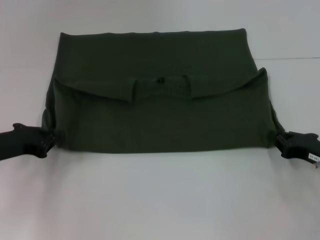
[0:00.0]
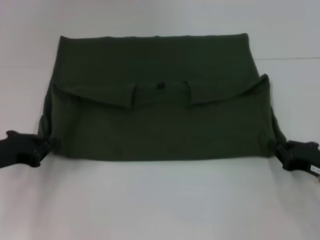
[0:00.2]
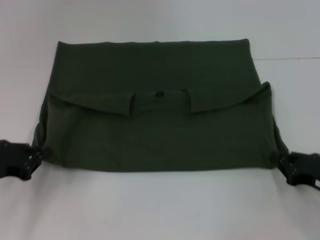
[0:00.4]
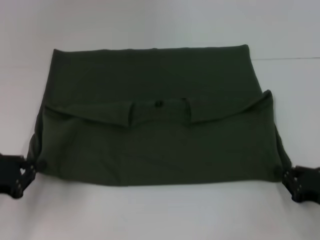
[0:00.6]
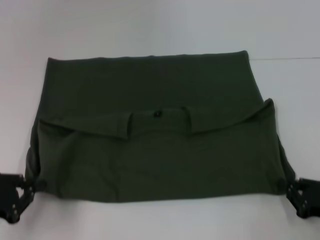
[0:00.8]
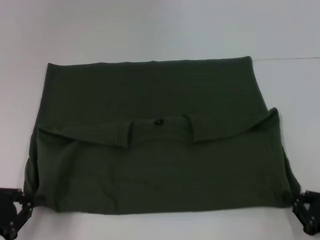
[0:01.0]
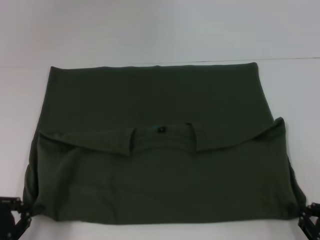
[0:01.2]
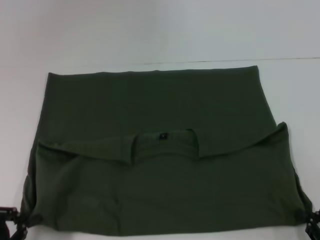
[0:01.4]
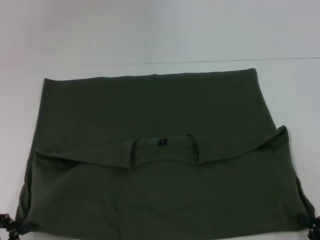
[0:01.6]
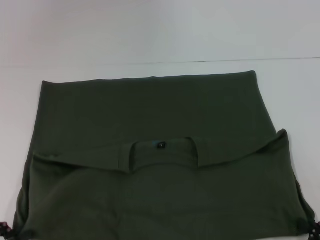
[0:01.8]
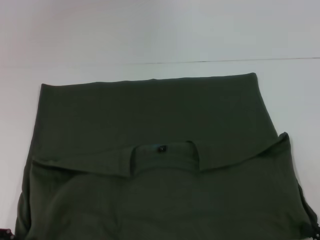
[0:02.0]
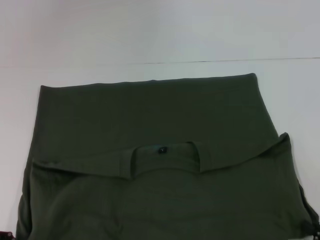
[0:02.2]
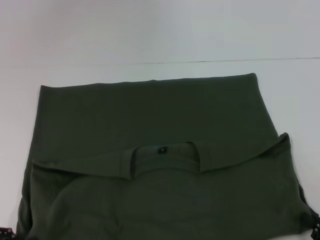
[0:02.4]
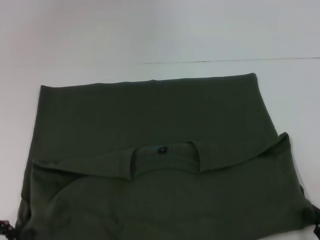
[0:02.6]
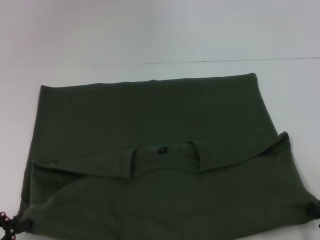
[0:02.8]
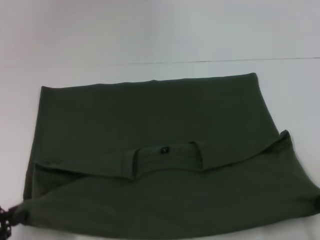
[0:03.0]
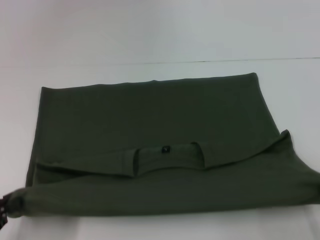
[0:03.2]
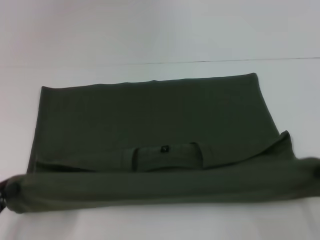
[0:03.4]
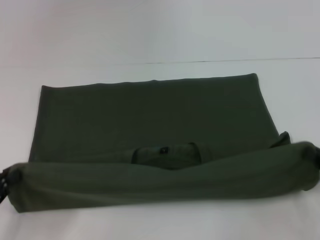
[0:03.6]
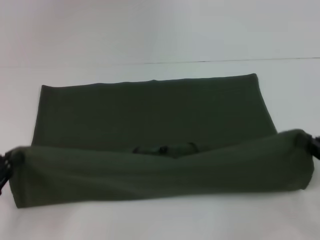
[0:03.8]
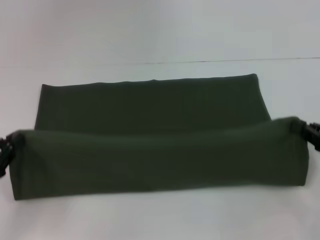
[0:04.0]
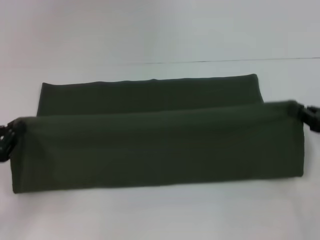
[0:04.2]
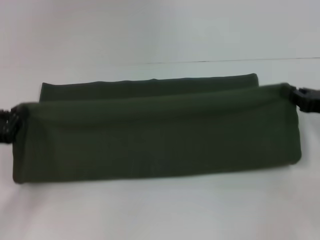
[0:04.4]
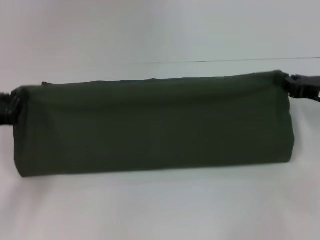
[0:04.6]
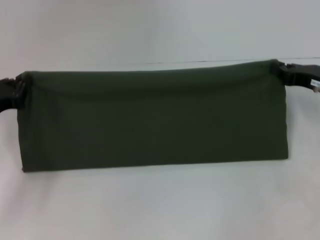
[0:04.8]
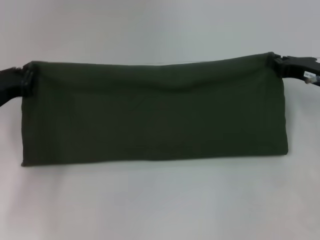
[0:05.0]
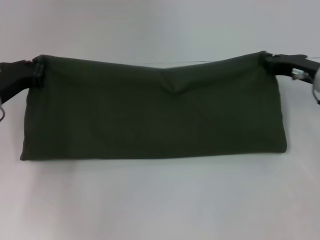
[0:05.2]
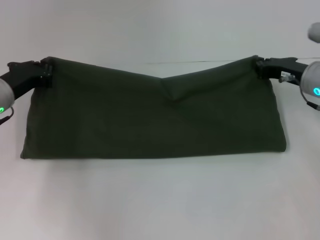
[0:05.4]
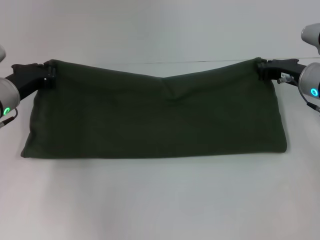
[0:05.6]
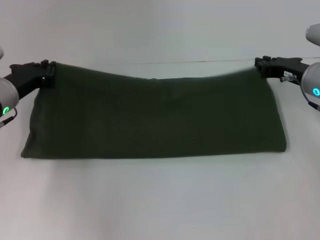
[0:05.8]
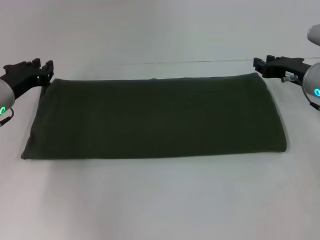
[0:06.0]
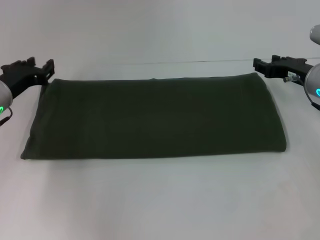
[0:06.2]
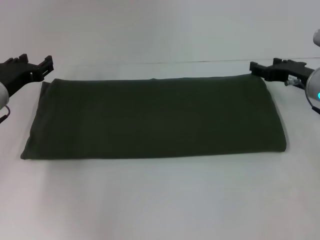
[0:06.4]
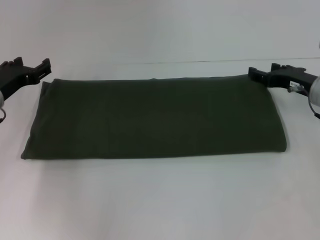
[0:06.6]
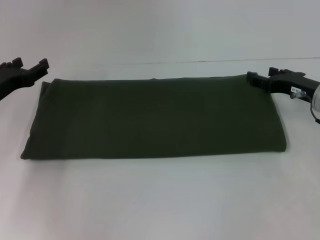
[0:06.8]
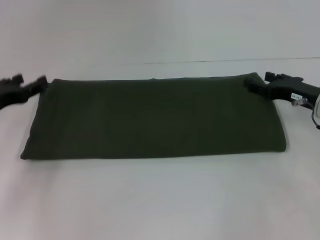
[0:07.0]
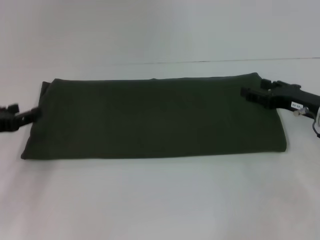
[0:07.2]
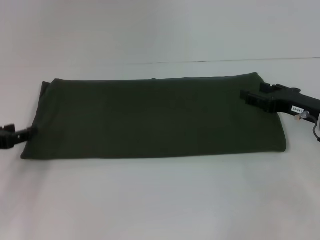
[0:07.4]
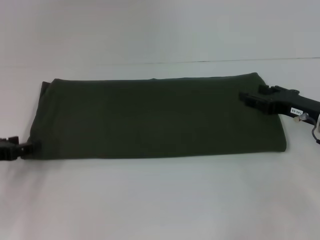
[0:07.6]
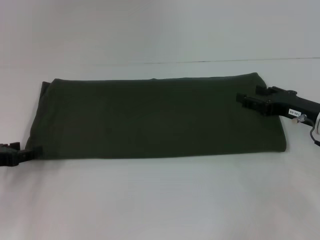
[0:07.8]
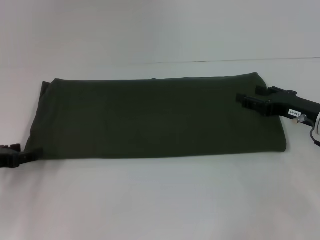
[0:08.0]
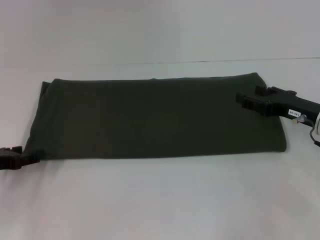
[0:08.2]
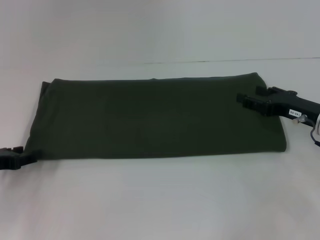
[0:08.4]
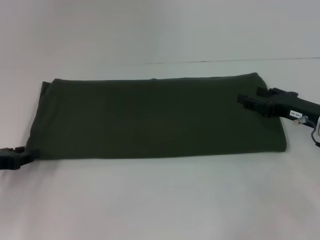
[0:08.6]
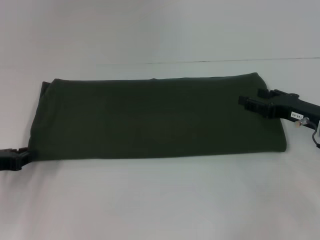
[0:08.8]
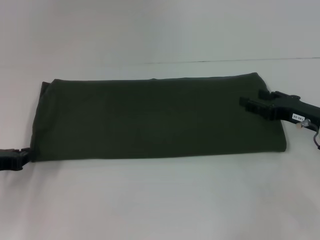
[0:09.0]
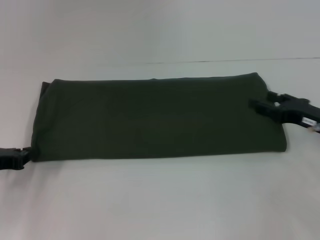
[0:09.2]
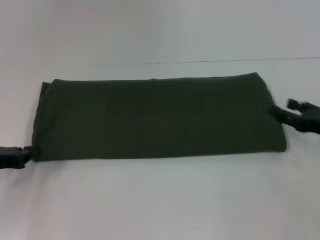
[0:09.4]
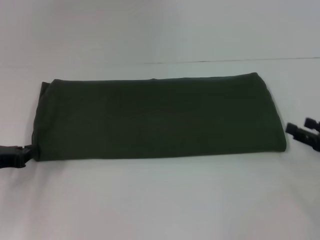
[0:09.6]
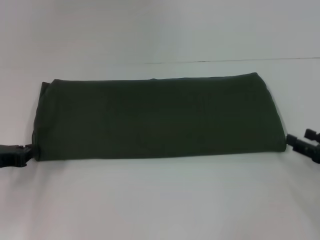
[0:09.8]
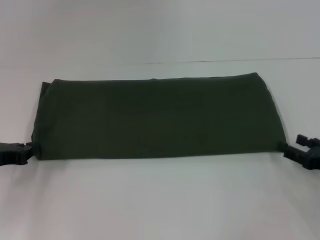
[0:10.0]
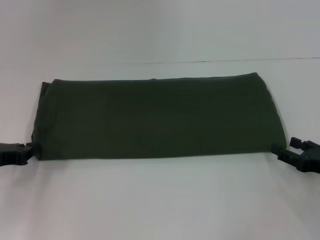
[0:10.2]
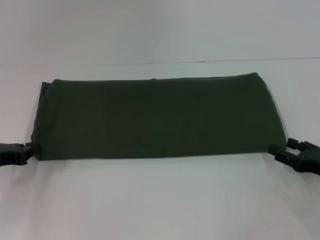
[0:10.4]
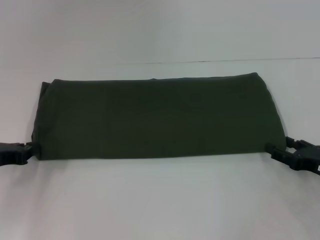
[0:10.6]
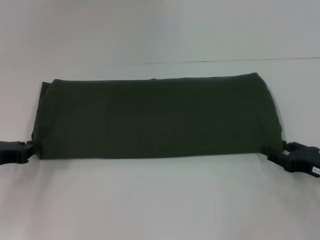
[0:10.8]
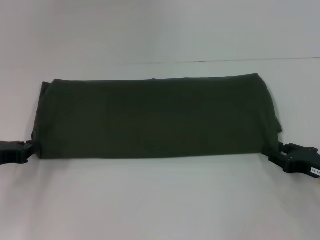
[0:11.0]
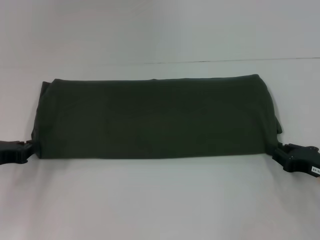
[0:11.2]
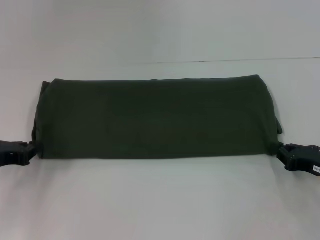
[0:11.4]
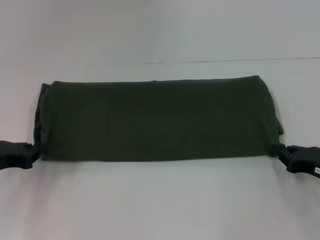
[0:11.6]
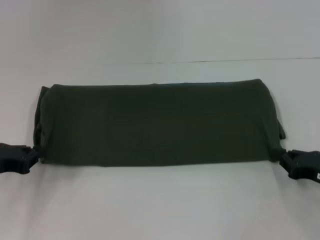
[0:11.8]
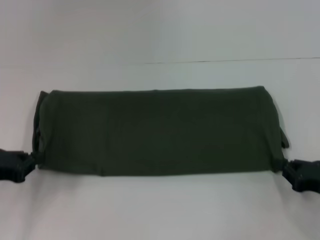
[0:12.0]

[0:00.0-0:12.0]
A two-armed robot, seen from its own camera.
Step, 0:01.6 to 0:06.4: Fold the clothes with your right hand.
0:00.0 to 0:01.6: The two grippers go approximately 15 cm backward.
0:01.6 to 0:03.0: The grippers move only a little.
0:03.0 to 0:04.4: The right gripper shifts some 20 cm forward. The left gripper is displaced forward by approximately 10 cm.
0:04.4 to 0:06.0: The left gripper is displaced forward and to the right by some 15 cm. The right gripper shifts roughly 10 cm forward and to the left.
0:06.0 to 0:07.6: The right gripper shifts approximately 5 cm backward, and opens up, while the left gripper travels backward and to the left by about 10 cm, and opens.
0:07.6 to 0:09.0: The left gripper closes.
0:09.0 to 0:10.4: The right gripper is displaced backward by about 10 cm.
0:10.4 to 0:12.0: The right gripper closes its fingers.

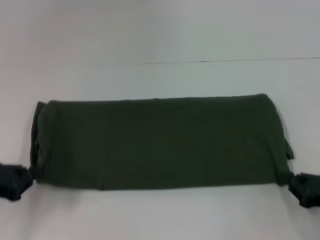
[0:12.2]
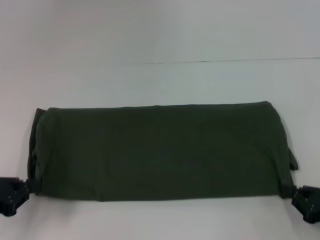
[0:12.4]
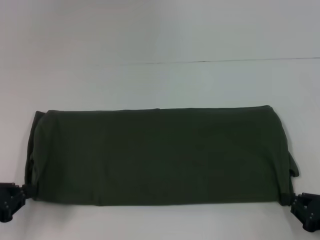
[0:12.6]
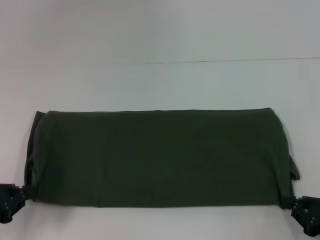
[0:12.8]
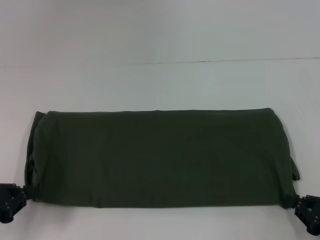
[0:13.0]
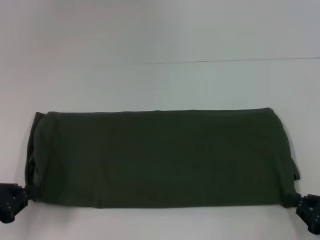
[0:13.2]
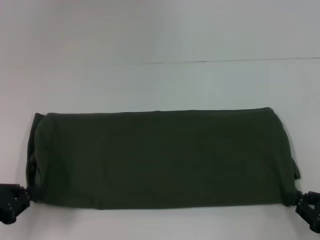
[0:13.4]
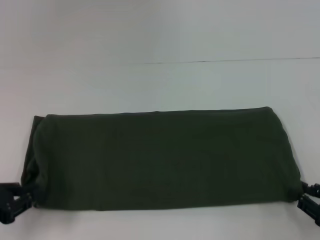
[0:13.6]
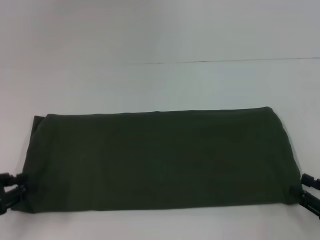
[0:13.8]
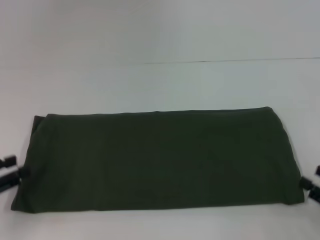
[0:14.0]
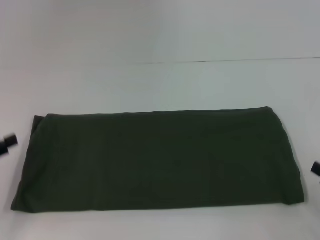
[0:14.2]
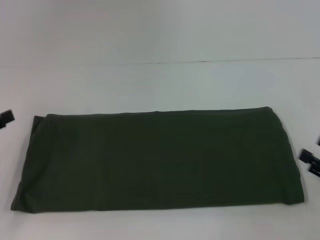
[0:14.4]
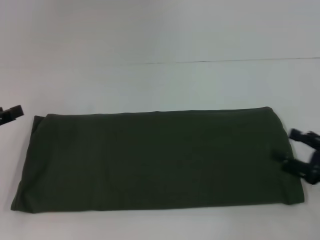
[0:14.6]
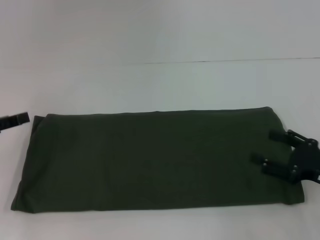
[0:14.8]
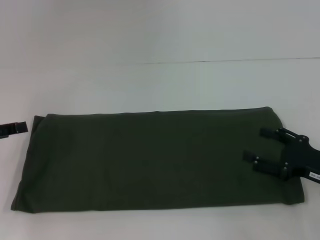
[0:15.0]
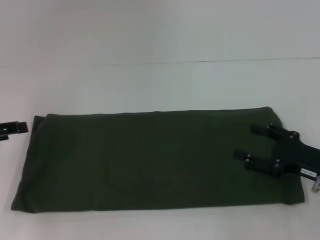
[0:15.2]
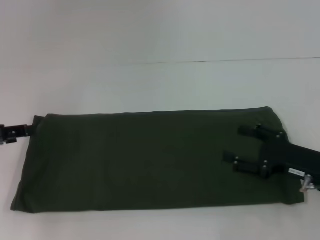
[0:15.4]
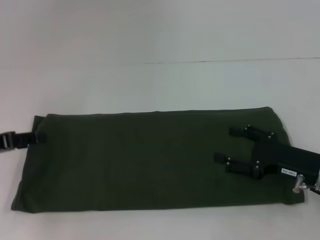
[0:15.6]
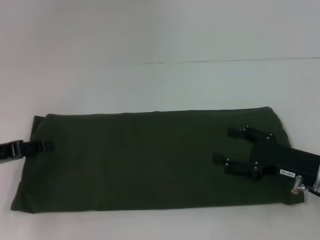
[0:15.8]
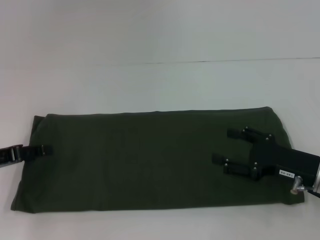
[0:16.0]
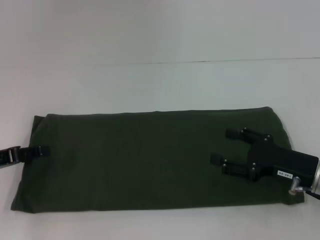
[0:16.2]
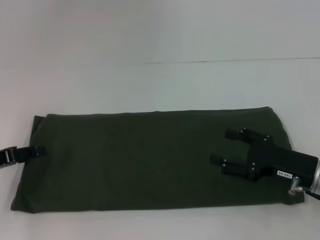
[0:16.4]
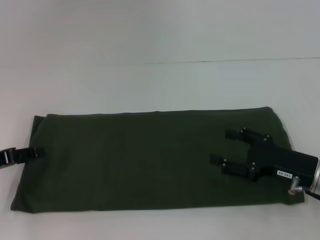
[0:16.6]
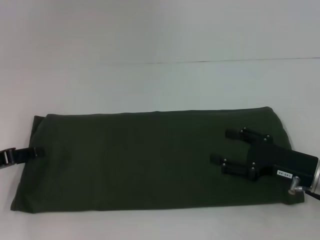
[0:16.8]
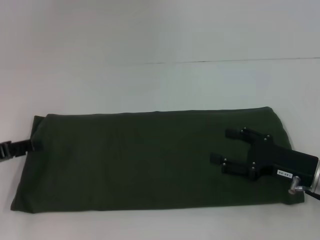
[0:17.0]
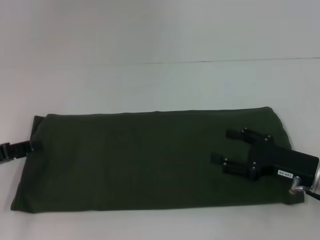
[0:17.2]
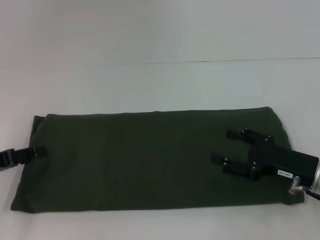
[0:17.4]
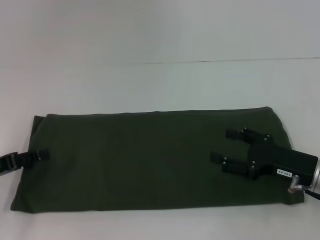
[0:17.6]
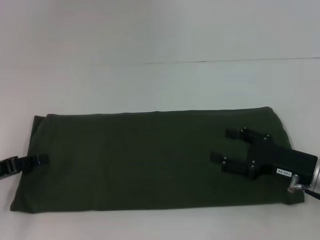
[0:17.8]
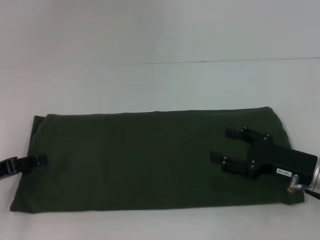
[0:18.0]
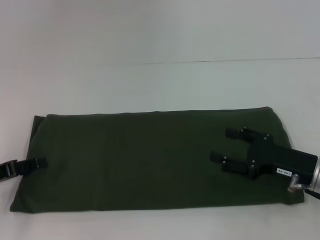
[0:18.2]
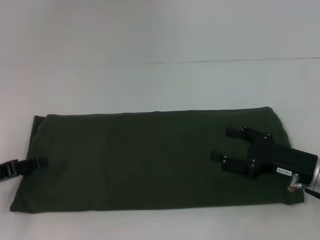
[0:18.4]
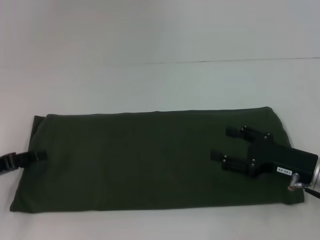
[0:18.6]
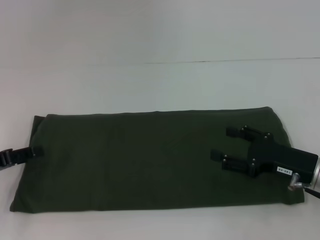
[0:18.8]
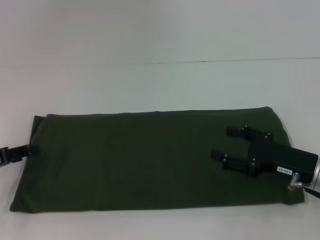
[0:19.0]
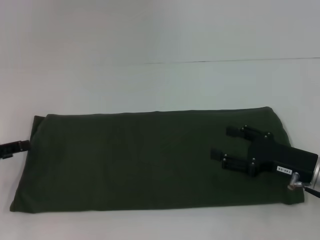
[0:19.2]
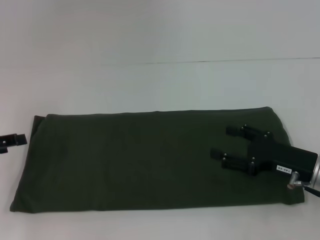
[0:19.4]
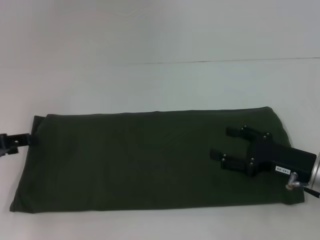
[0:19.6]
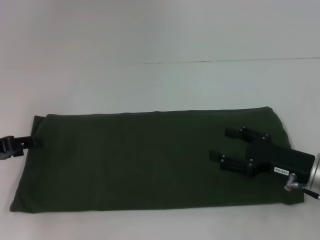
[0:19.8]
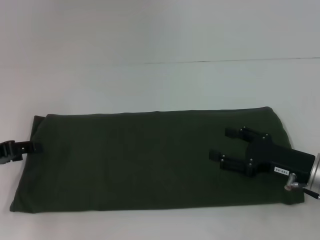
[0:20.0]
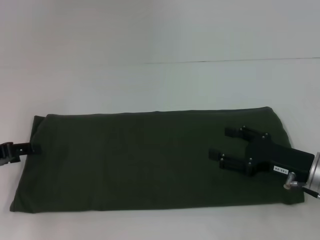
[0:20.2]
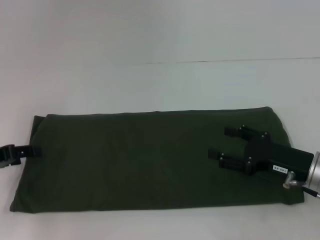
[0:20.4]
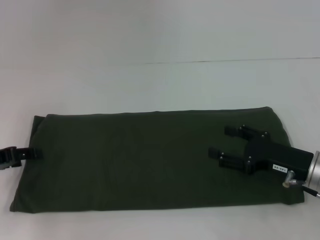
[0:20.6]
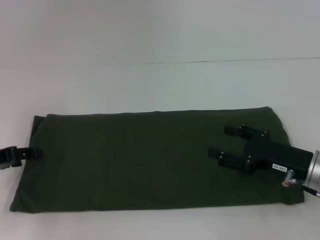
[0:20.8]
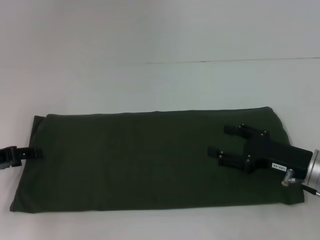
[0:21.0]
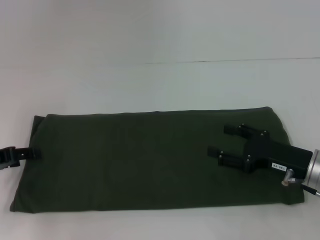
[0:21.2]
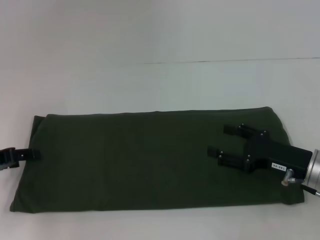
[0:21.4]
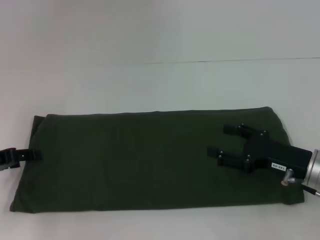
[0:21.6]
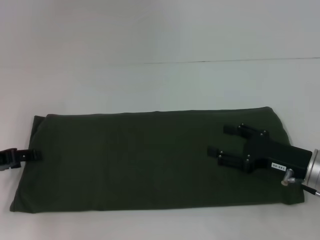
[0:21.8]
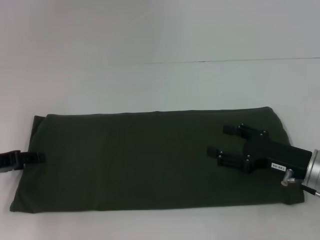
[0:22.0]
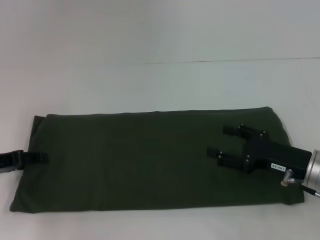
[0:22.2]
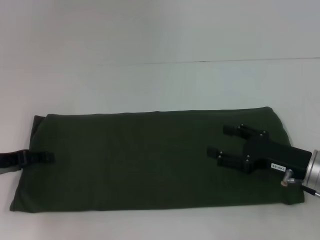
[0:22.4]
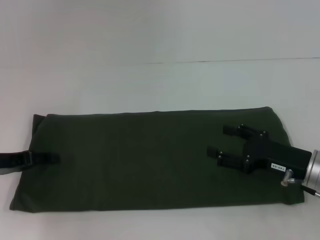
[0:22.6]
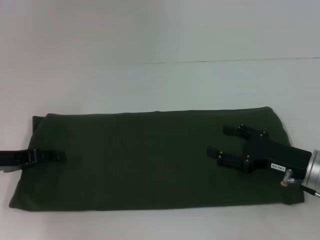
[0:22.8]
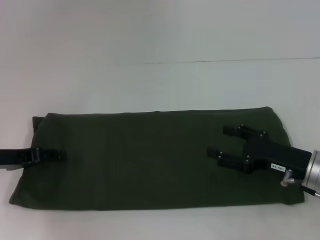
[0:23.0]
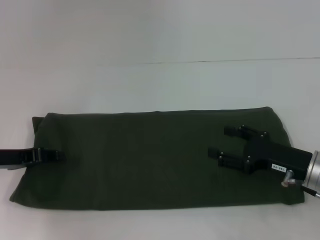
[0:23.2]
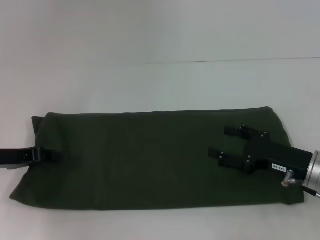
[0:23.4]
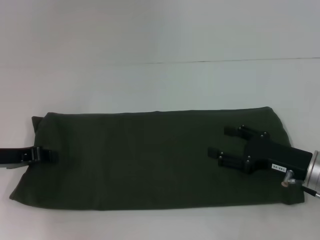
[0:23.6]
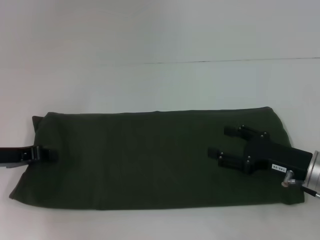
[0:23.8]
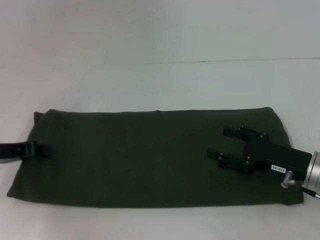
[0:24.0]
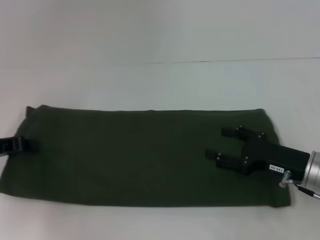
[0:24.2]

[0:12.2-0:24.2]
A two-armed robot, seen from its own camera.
0:12.2 to 0:13.8: There are only small adjustments of the grippers.
0:13.8 to 0:15.2: The left gripper goes some 10 cm forward and upward, and opens, while the right gripper travels forward and to the left by approximately 10 cm, and opens.
0:15.2 to 0:16.6: The left gripper goes roughly 5 cm downward.
0:16.6 to 0:22.6: The grippers stay close to where they were, moving slightly.
0:22.6 to 0:24.2: The left gripper closes up.
